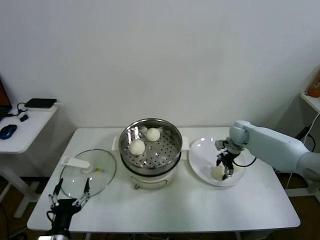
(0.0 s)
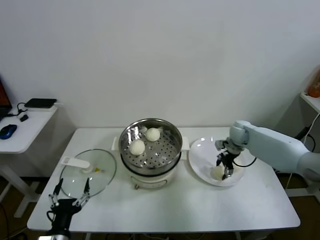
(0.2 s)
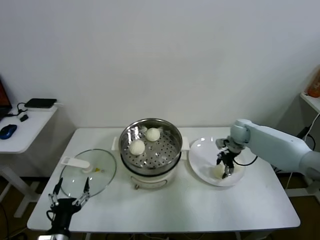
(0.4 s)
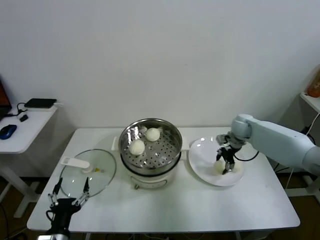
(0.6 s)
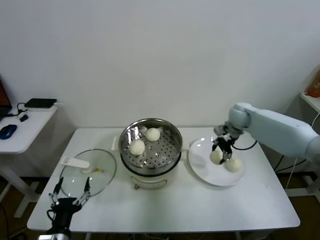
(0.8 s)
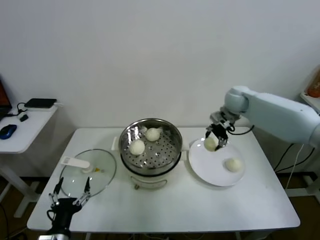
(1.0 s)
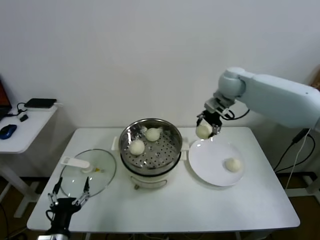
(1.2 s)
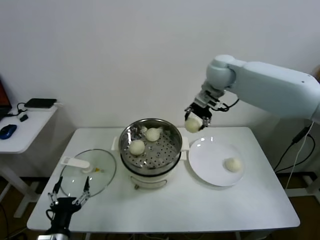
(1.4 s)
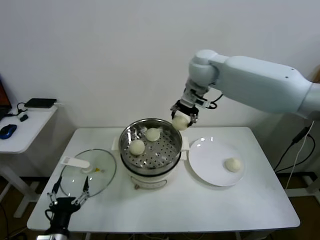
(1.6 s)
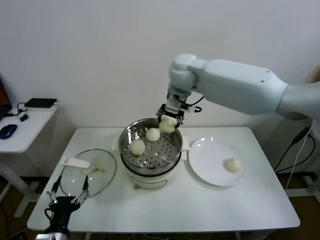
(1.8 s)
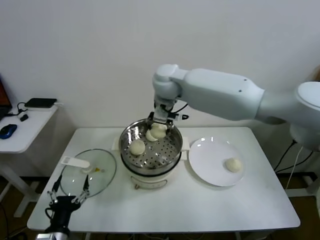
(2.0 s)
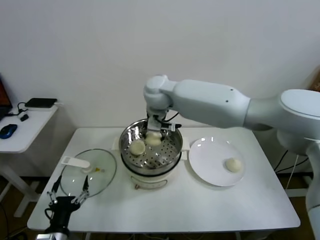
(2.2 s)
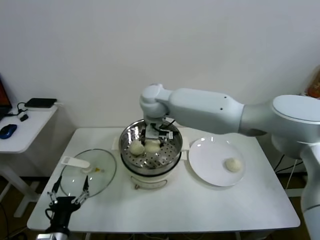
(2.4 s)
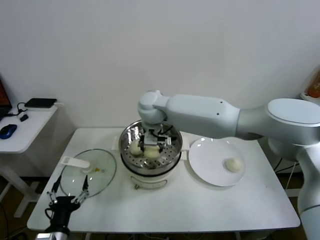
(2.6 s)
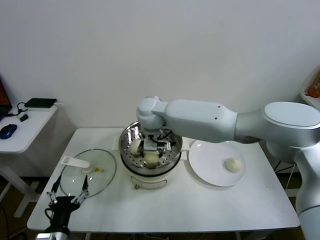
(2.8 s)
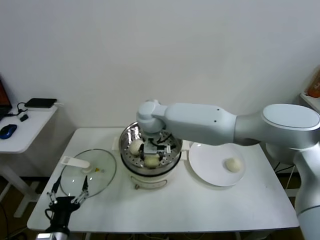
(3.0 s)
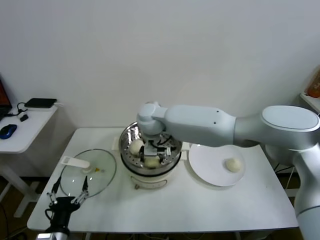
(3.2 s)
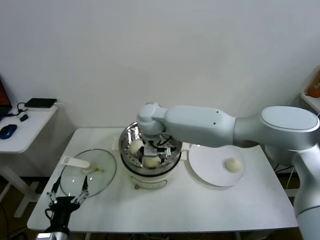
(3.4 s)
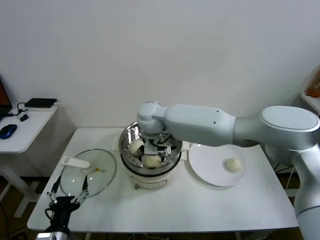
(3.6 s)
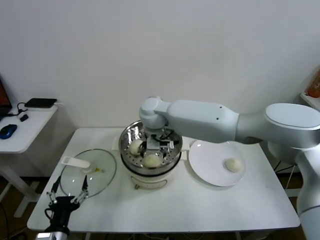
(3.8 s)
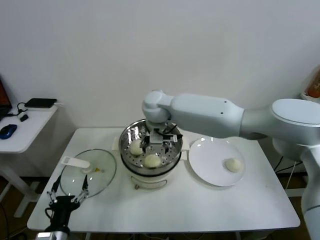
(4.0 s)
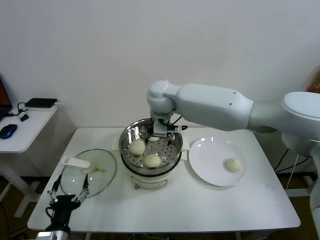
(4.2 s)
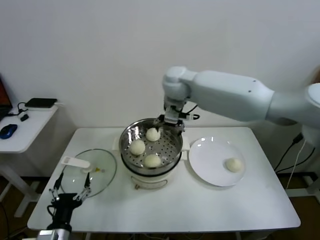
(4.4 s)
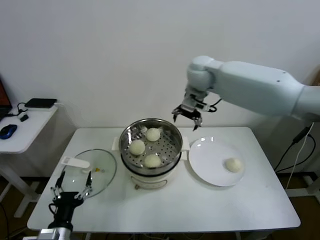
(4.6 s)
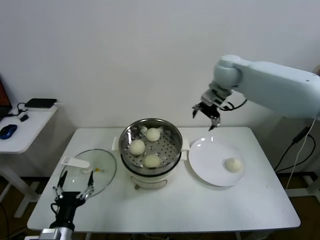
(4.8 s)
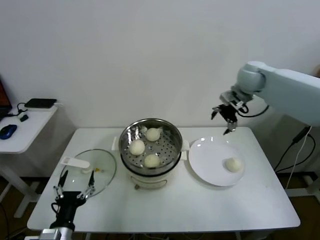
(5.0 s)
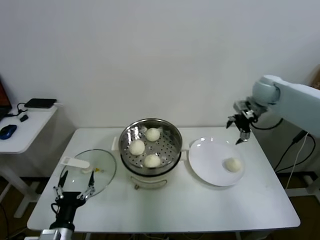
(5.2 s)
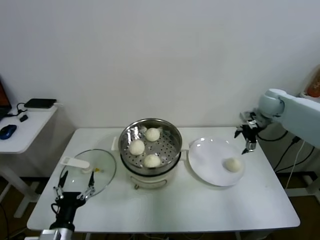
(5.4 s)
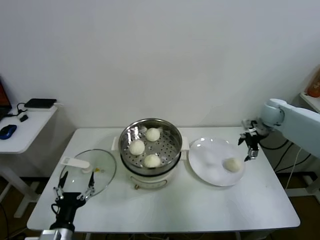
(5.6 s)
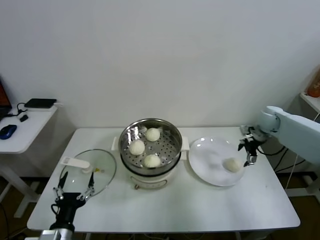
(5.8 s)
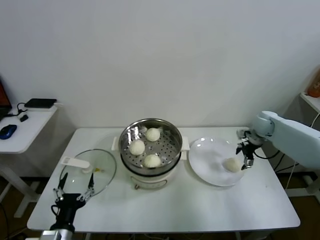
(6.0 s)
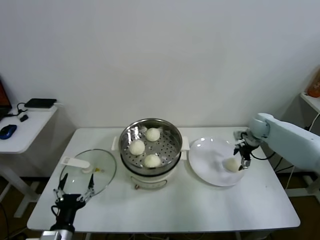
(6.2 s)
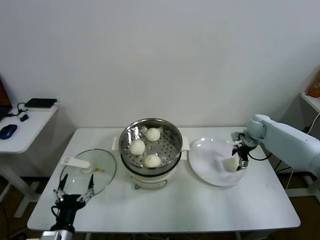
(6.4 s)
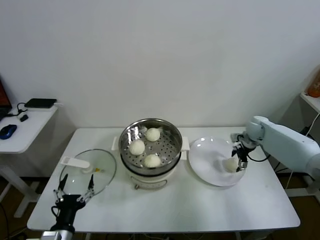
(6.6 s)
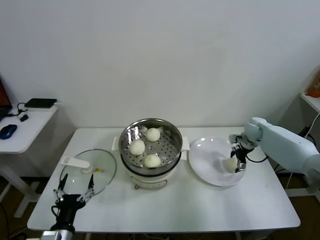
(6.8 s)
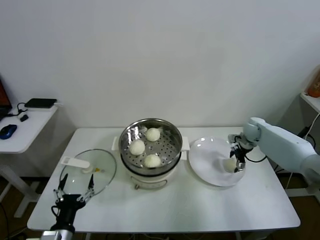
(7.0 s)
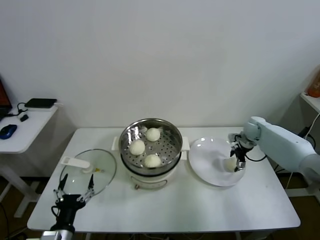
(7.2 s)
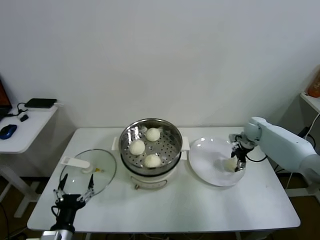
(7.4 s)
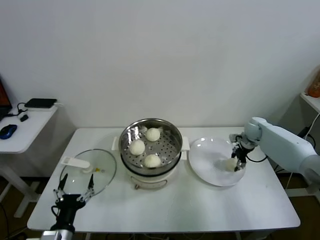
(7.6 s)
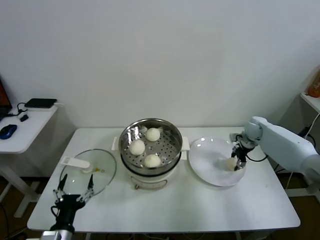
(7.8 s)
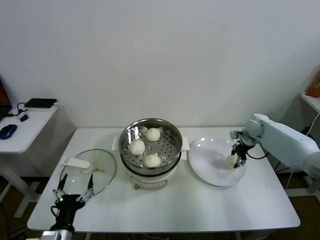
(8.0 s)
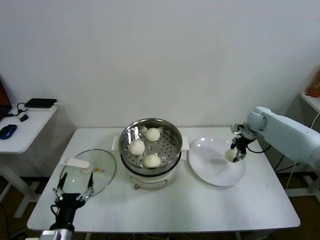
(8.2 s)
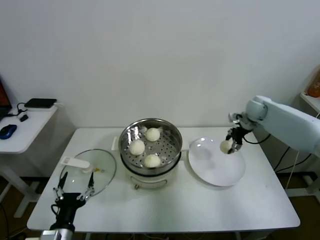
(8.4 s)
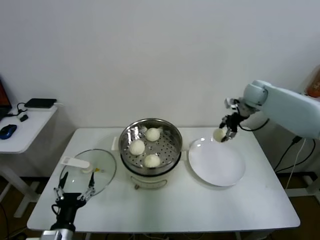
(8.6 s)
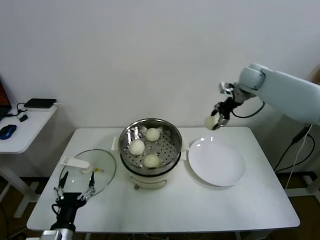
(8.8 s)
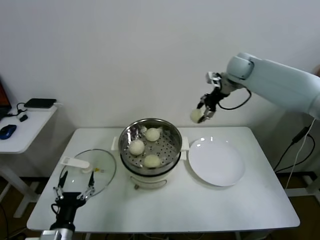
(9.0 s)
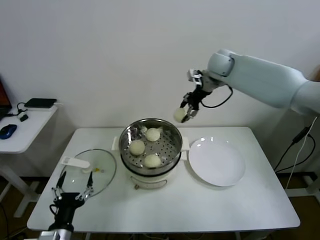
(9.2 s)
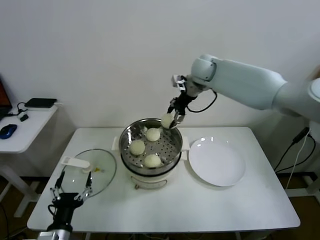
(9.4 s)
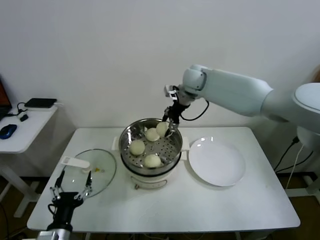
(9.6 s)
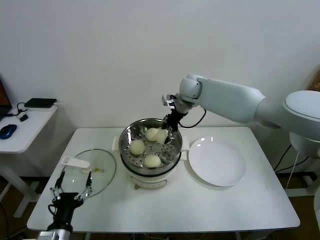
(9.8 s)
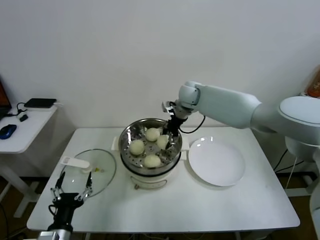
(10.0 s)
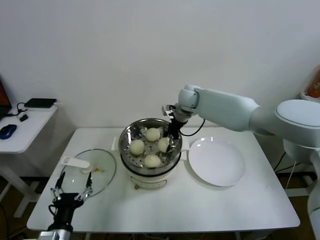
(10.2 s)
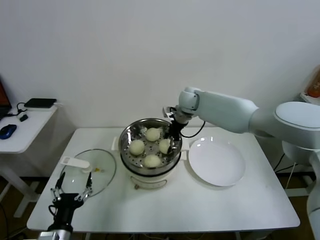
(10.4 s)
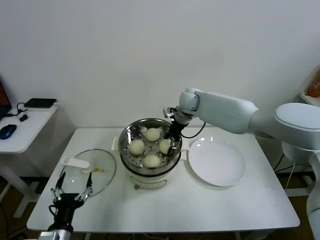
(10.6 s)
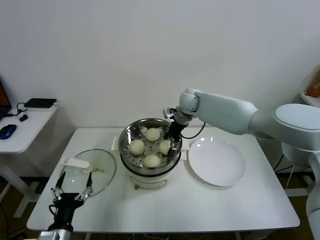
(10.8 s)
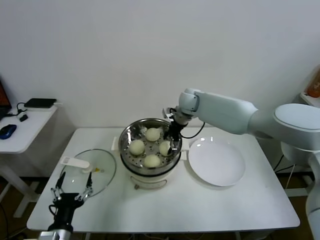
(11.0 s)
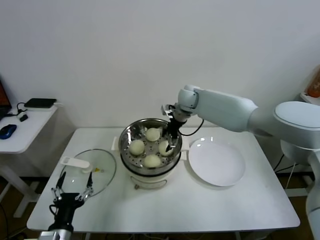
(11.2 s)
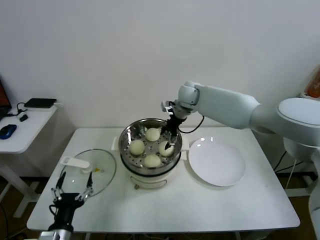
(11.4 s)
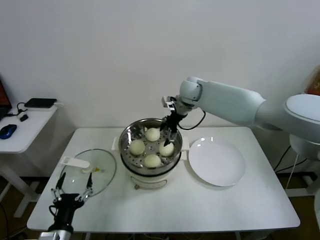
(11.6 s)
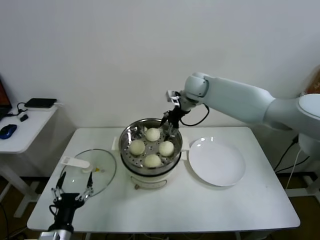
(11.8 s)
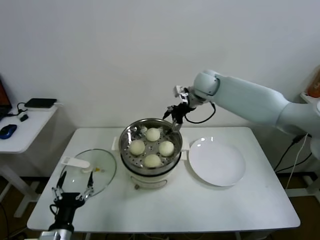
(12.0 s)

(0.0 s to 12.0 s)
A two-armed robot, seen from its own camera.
Task of the whole recording: take steamed baozi put them in steamer.
Step, 0.6 s - 3.6 s: Place the baozi on the steamer with right gripper.
Step, 3.8 s - 7.8 s: Grasp the baozi in the plate with right gripper.
Step, 8.0 s - 11.0 s: Place the baozi on the steamer with right gripper.
0.0 s - 1.6 s: The right gripper goes about 35 cm upward and to the left.
1.6 s - 3.0 s: The right gripper travels to the left and downward by about 20 cm.
3.0 s - 4.4 s: The right gripper travels upward and to the right by some 15 cm, and opens up.
4.4 s - 6.0 s: The right gripper heads to the right and downward, covering some 40 cm.
6.0 s - 7.6 s: The right gripper is displaced downward by approximately 5 cm, and closes up.
7.6 s - 9.0 s: The right gripper moves upward and to the left, about 30 cm.
9.0 s - 10.4 s: The right gripper moves to the left and downward, roughly 20 cm.
10.4 s - 12.0 s: The right gripper travels upward by some 5 cm, and opens up.

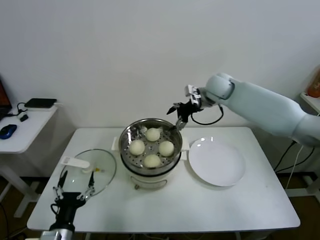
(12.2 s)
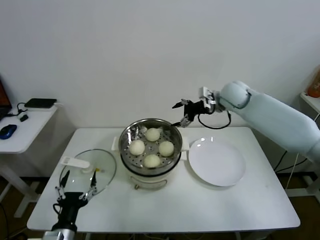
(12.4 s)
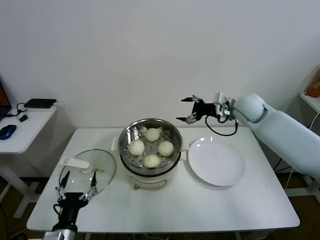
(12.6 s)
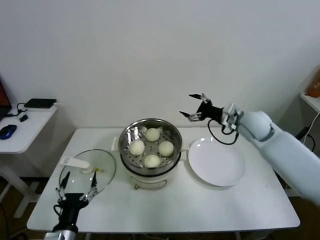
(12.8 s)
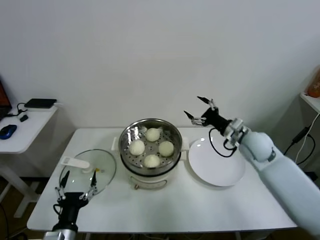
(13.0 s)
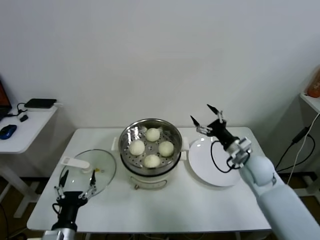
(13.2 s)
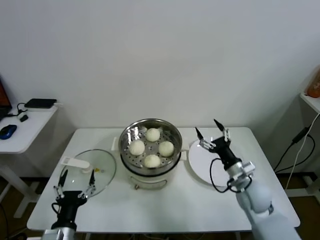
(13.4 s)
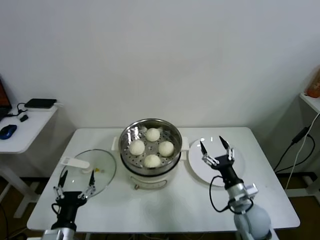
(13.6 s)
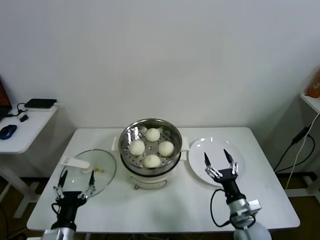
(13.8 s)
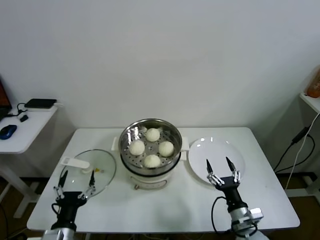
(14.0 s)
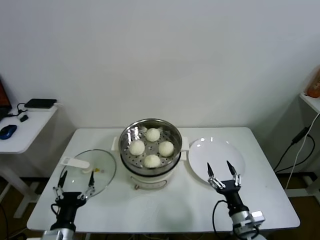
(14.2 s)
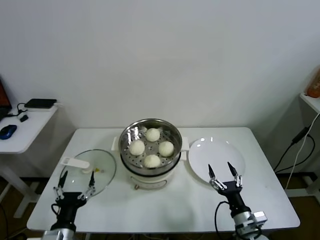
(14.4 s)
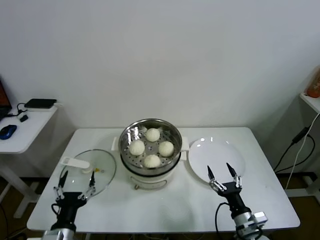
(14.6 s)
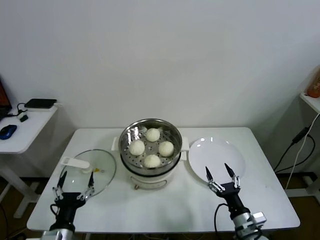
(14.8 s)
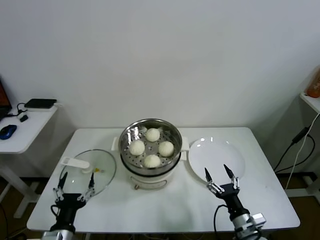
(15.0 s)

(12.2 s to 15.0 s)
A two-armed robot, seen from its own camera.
Task of the whole recording: take steamed baozi put them in steamer.
12.2 s - 13.6 s: The right gripper goes roughly 40 cm backward and downward.
13.6 s - 15.0 s: The right gripper heads backward, covering roughly 10 cm.

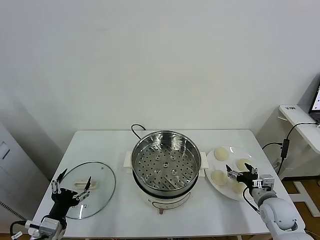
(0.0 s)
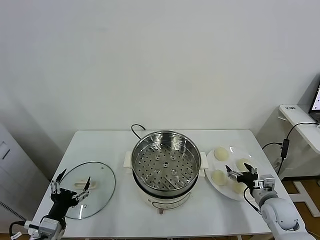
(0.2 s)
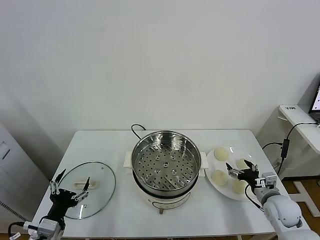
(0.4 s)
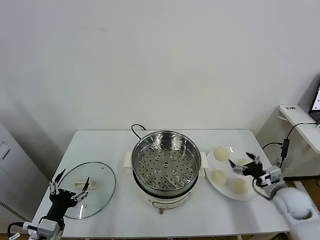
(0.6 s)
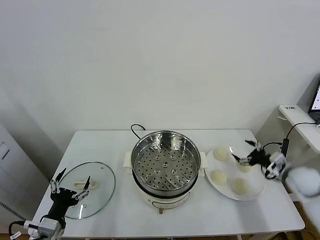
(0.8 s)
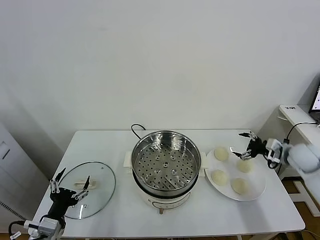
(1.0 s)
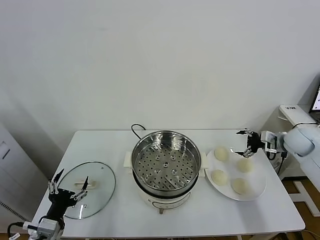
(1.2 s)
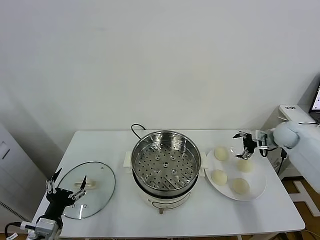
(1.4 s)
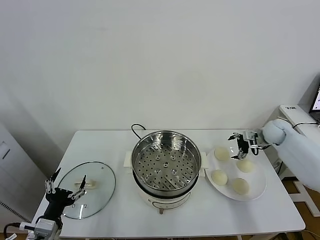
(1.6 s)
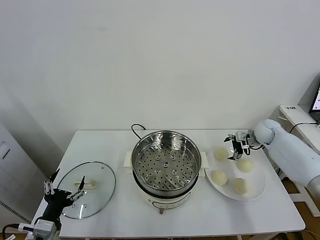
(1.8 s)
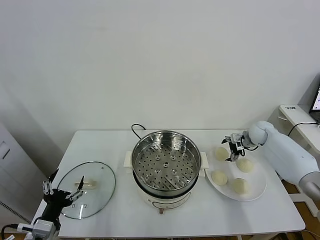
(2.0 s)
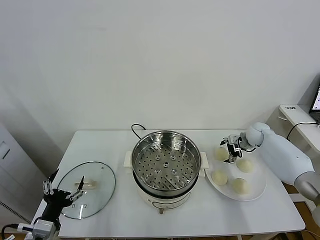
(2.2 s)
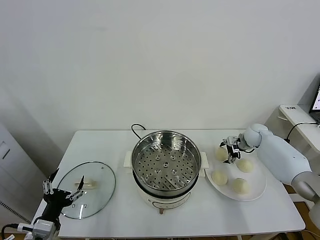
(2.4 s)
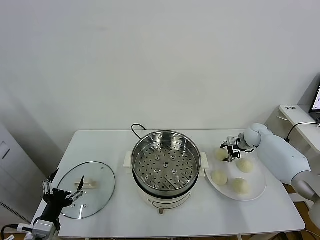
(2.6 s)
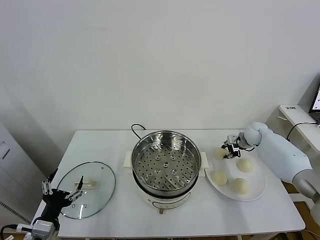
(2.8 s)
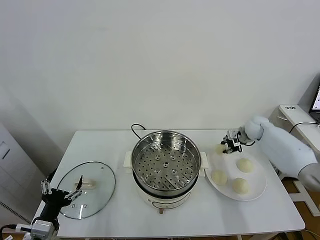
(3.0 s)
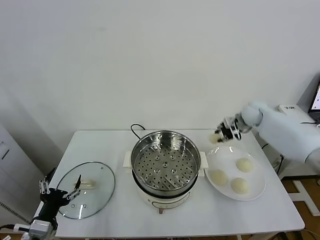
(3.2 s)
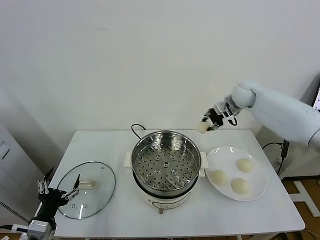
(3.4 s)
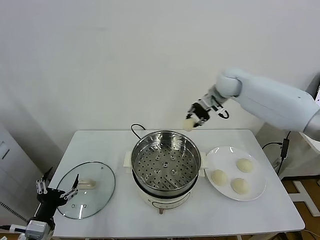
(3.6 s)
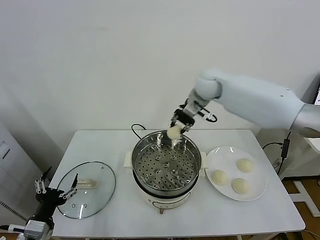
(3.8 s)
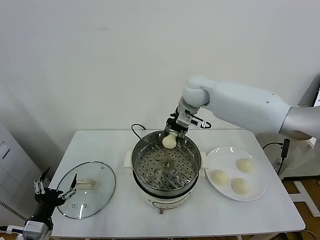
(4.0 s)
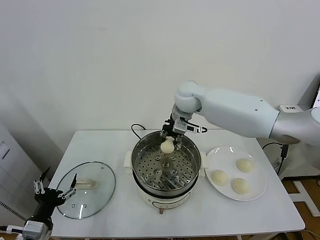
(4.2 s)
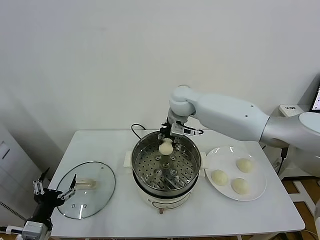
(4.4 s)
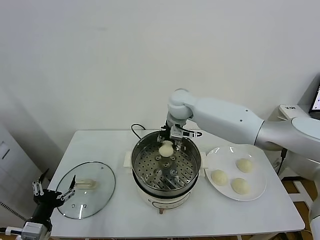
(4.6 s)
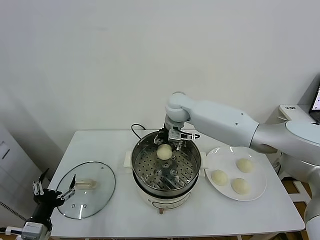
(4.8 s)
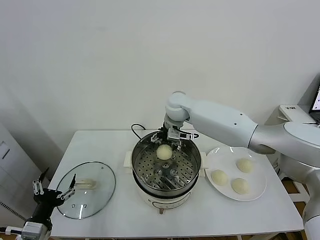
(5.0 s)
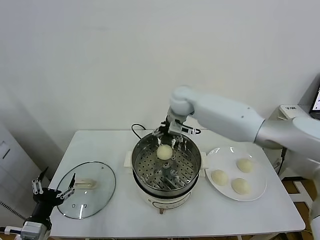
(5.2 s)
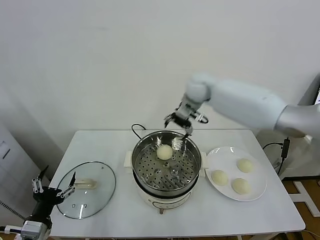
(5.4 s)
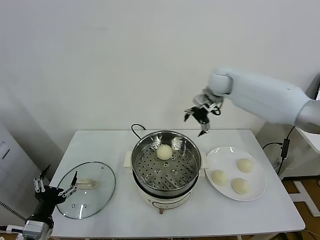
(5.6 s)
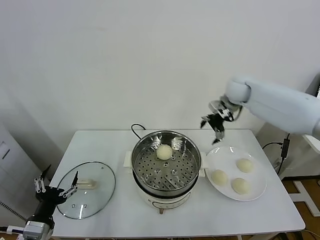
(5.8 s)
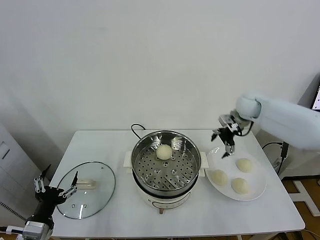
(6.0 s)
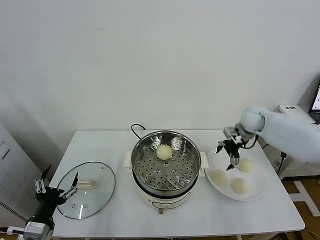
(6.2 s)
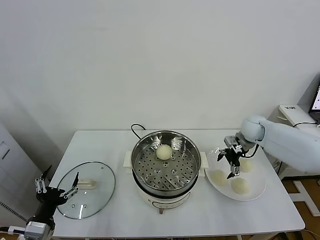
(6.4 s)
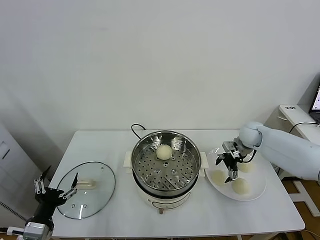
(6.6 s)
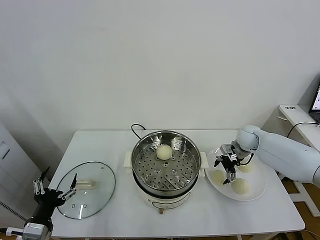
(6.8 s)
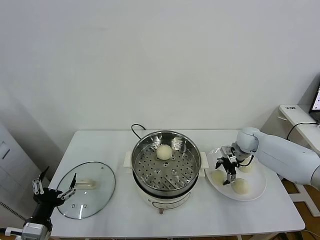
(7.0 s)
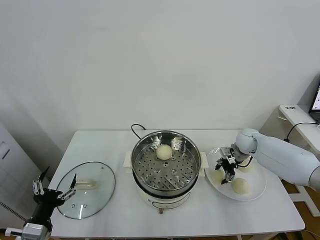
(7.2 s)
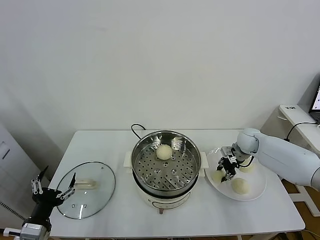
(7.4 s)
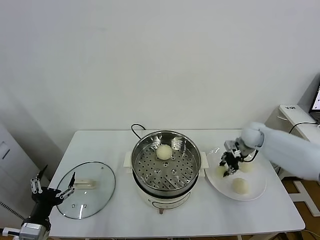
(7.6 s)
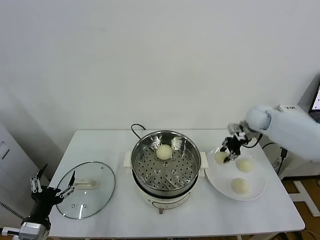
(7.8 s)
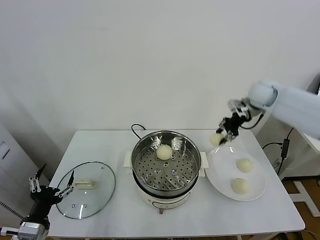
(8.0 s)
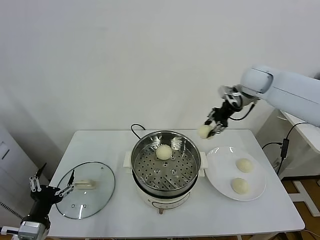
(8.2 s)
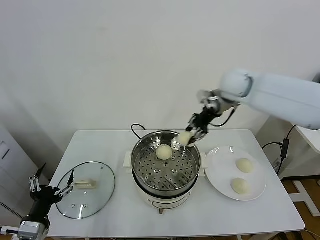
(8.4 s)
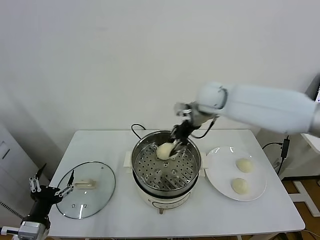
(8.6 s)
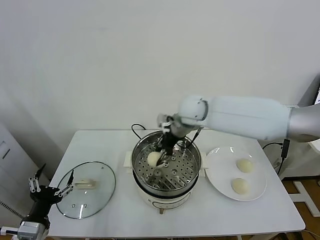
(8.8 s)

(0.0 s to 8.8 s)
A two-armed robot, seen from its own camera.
Task of the whole recording: take steamed baozi put them in steamer.
Step, 0.0 s - 2.4 s: Grasp the baozi in the plate with right gripper.
Step, 2.8 s - 5.0 s: Place the baozi on the steamer with right gripper.
Step, 5.2 s - 7.2 s: Grasp the baozi in the plate with right gripper.
1.4 s - 3.0 s: The right gripper goes roughly 10 cm to the left and forward, and closes up.
3.0 s - 4.4 s: The right gripper moves to the left, about 30 cm.
4.4 s - 5.8 s: The right gripper moves to the right, roughly 20 cm, and opens up.
5.8 s - 7.4 s: The right gripper travels downward by some 15 cm, and closes up.
7.4 s - 8.8 s: The right gripper shifts some 30 cm to the left and upward.
